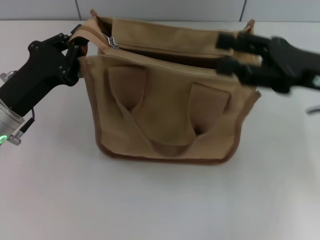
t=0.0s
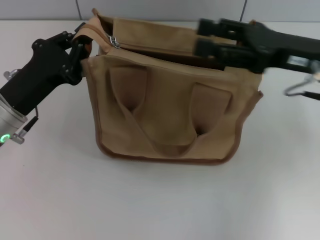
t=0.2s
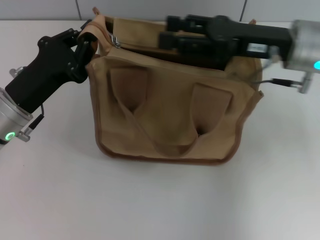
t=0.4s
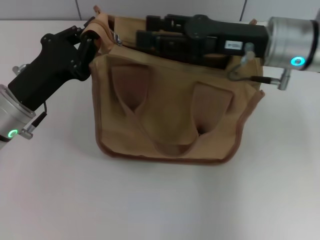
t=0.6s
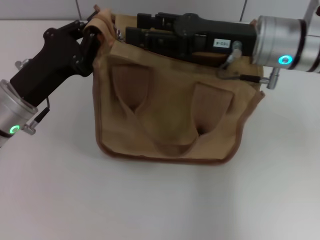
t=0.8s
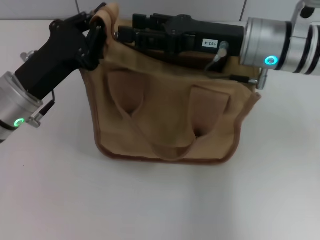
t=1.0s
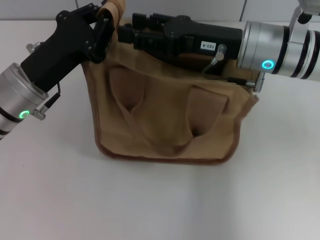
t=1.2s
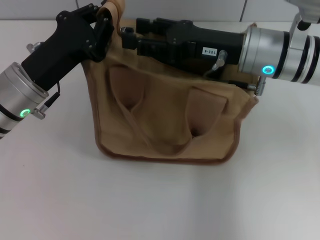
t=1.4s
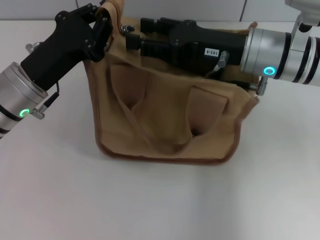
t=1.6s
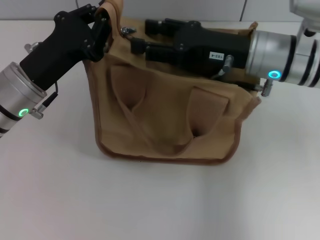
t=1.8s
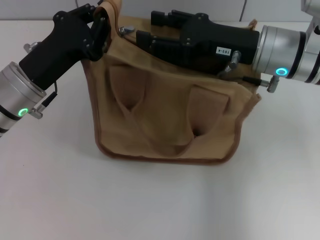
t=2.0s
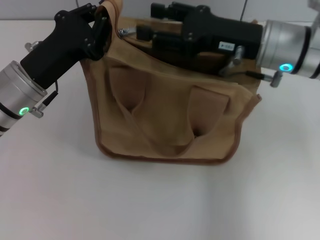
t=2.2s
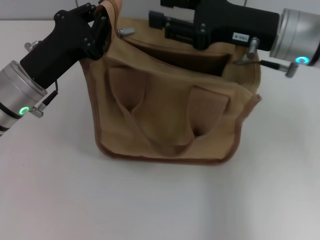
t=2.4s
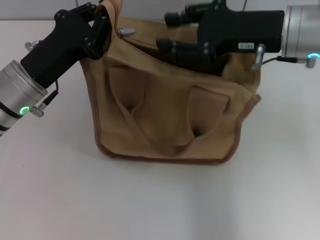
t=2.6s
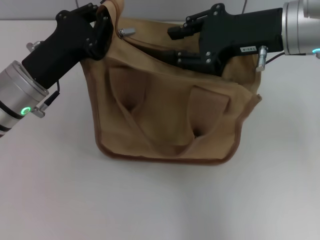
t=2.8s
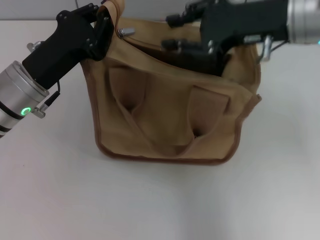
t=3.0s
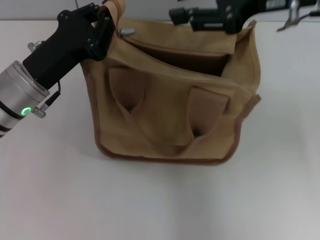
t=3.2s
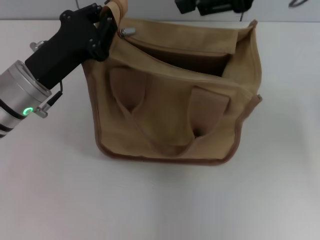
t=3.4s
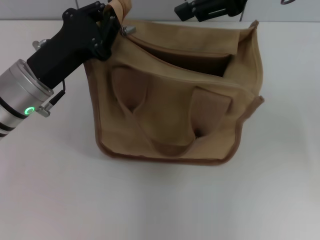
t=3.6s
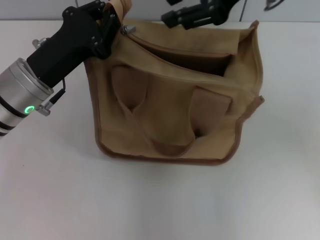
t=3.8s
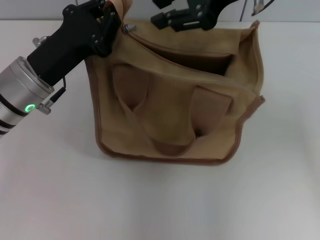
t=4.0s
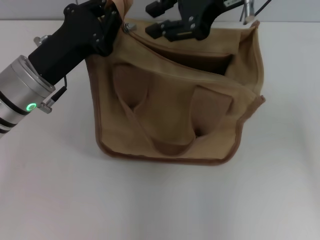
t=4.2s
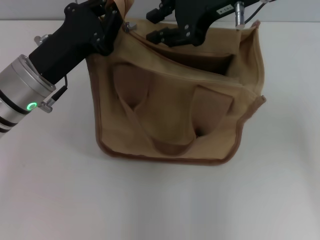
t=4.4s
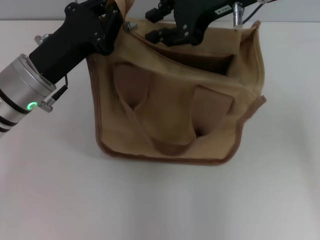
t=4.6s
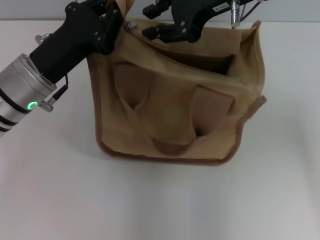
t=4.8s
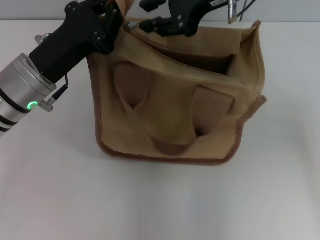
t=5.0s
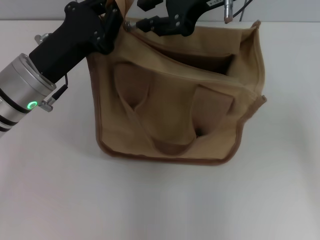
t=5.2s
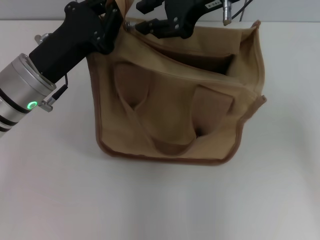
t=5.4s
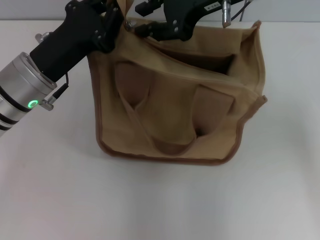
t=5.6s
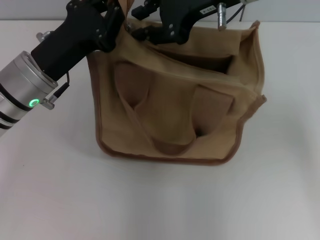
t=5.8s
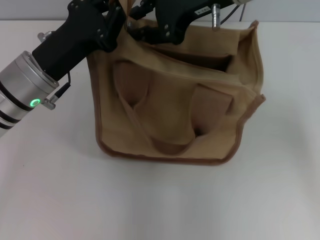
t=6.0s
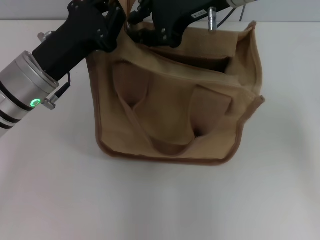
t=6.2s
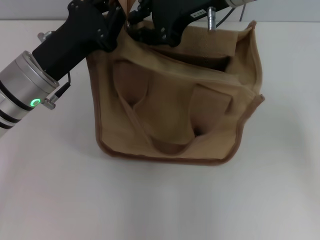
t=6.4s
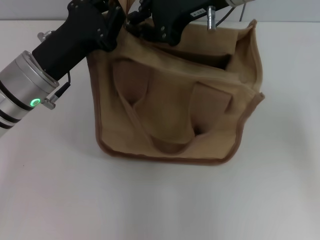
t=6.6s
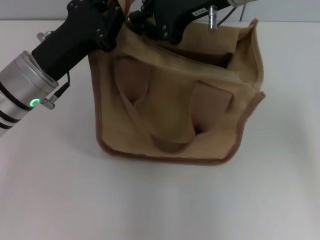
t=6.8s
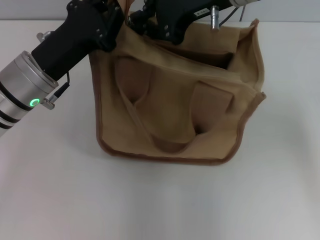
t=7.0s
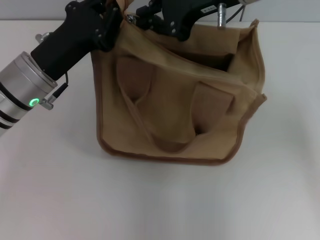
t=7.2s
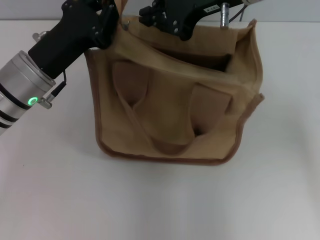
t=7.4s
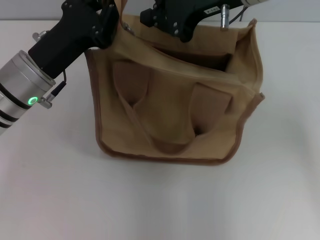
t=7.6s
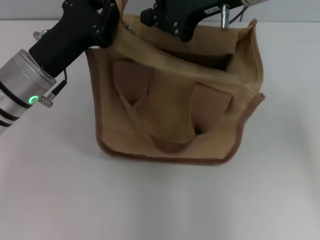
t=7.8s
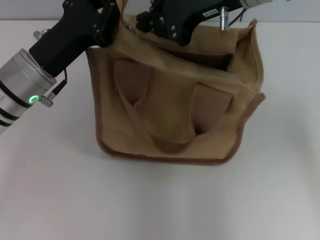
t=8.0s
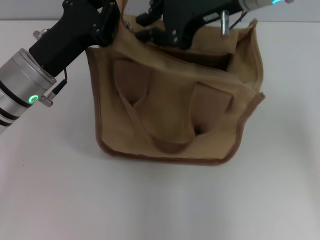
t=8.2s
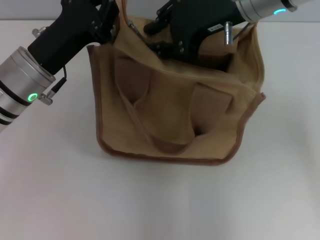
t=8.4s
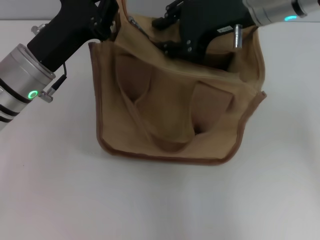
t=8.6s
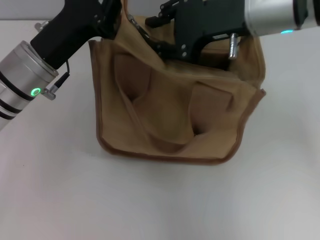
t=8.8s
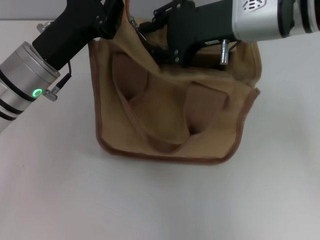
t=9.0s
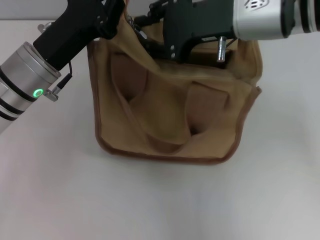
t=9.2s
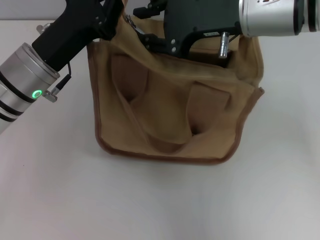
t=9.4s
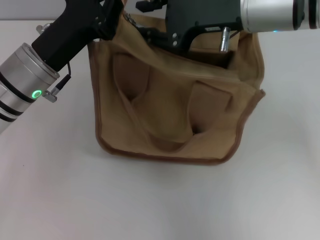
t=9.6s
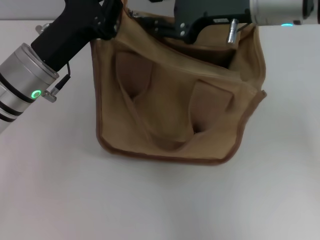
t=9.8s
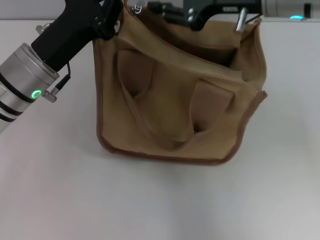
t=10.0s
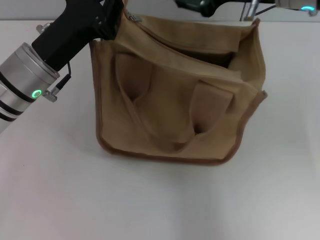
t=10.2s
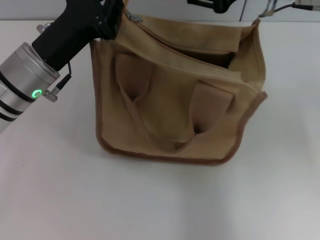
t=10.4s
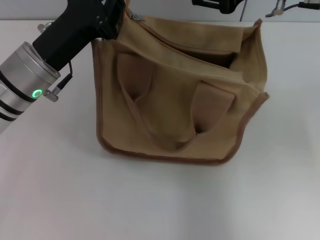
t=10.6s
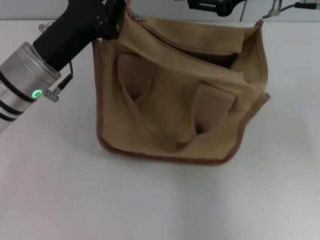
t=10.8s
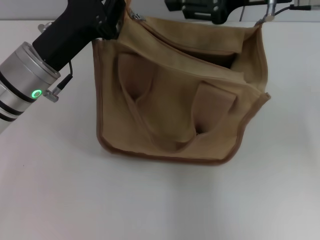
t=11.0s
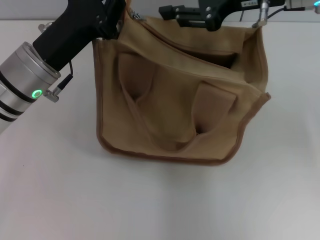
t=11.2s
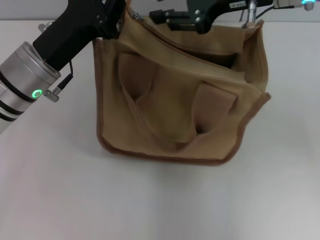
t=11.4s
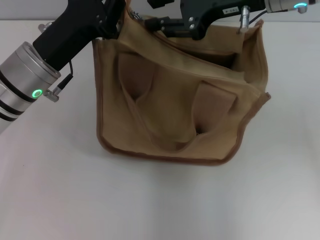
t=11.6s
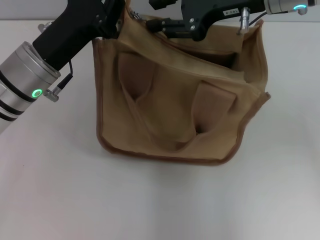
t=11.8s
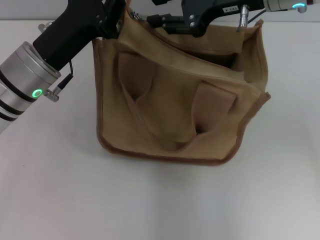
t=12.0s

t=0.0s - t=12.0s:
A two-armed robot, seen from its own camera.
t=0.0s - t=1.6s: The right gripper moves to the left and forward, approximately 10 cm.
t=1.6s - t=3.0s: The right gripper is displaced upward by about 10 cm, and closes its fingers.
t=3.0s - t=4.4s: The right gripper travels to the left by some 5 cm.
t=4.4s - t=6.0s: There are only small adjustments of the grippers.
t=6.0s - t=7.6s: The right gripper closes.
t=7.6s - t=9.0s: The right gripper opens its fingers.
t=9.0s - t=10.4s: The right gripper moves to the right, roughly 5 cm.
t=10.4s - t=12.0s: The grippers make only small movements.

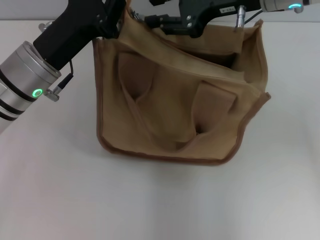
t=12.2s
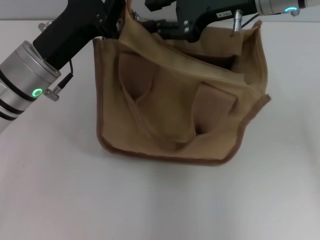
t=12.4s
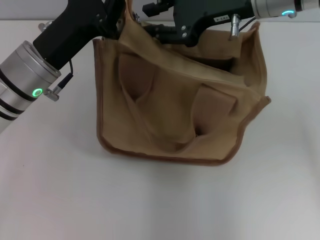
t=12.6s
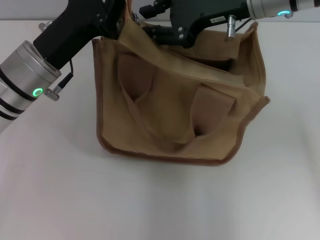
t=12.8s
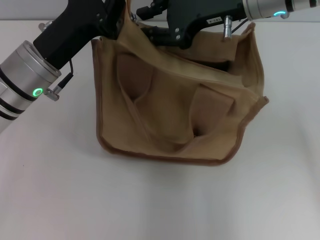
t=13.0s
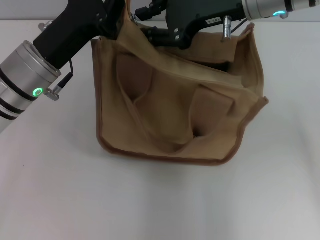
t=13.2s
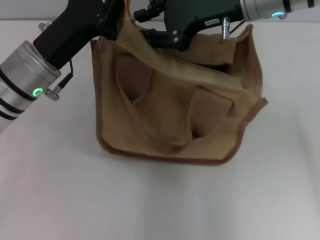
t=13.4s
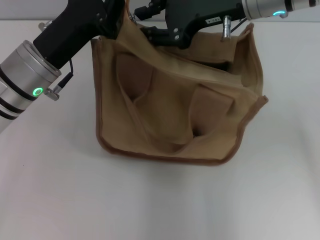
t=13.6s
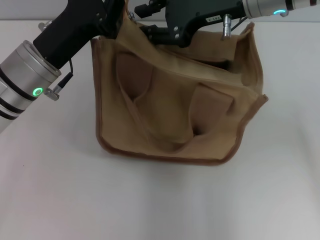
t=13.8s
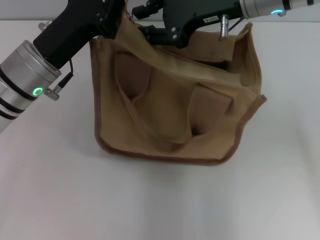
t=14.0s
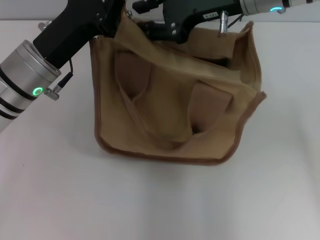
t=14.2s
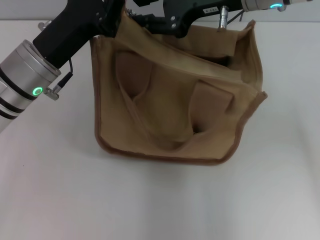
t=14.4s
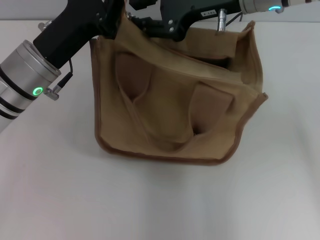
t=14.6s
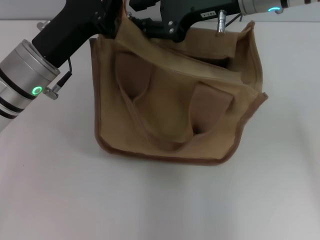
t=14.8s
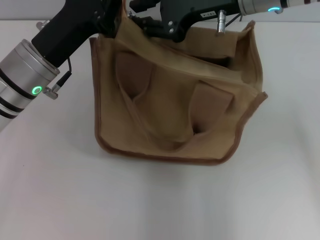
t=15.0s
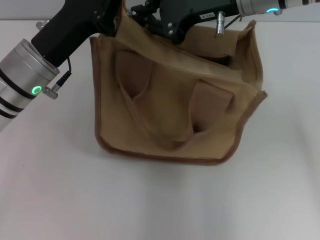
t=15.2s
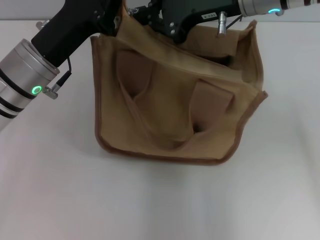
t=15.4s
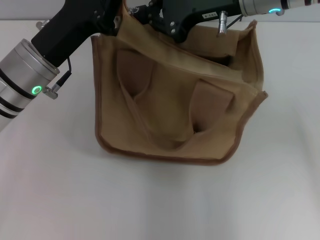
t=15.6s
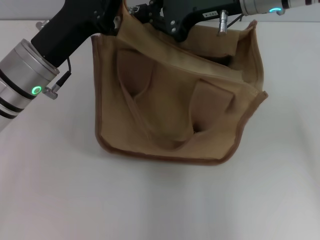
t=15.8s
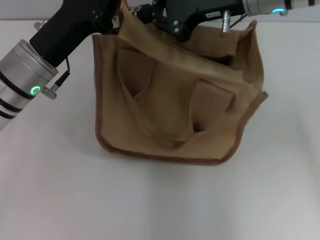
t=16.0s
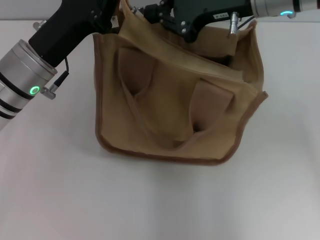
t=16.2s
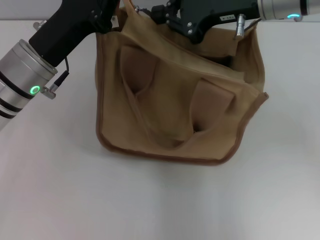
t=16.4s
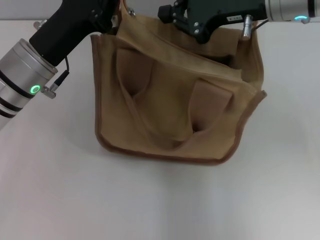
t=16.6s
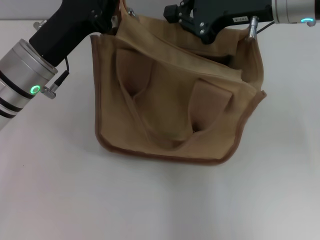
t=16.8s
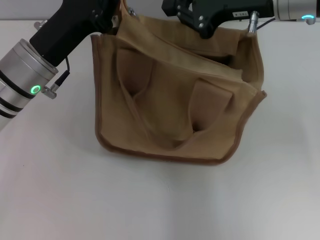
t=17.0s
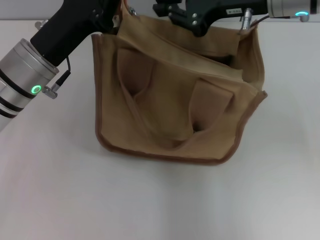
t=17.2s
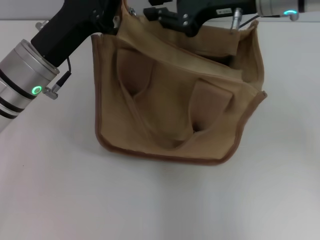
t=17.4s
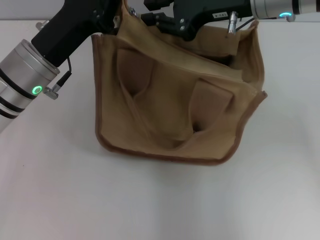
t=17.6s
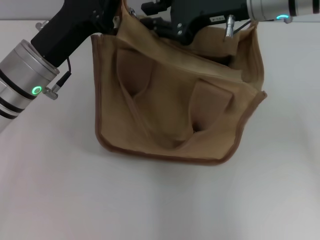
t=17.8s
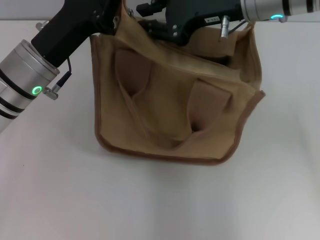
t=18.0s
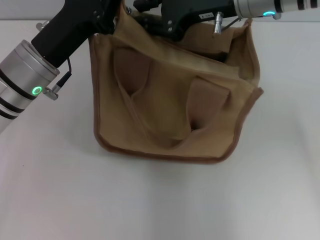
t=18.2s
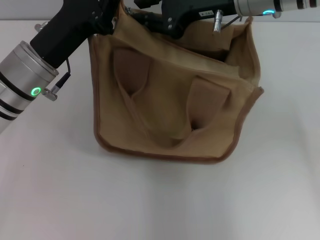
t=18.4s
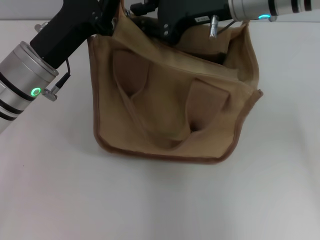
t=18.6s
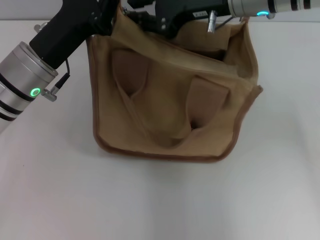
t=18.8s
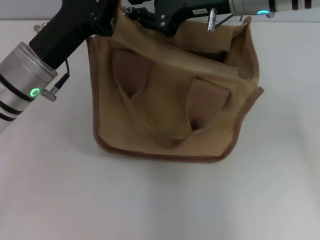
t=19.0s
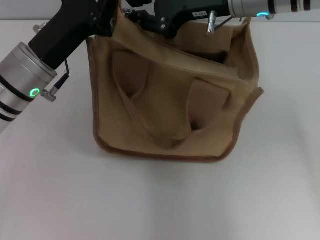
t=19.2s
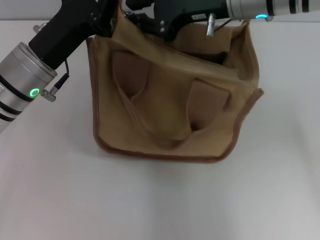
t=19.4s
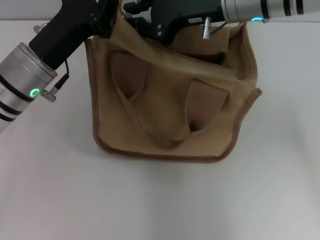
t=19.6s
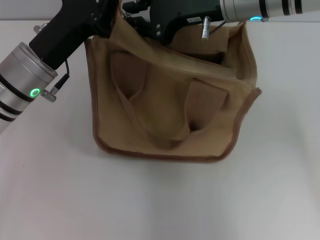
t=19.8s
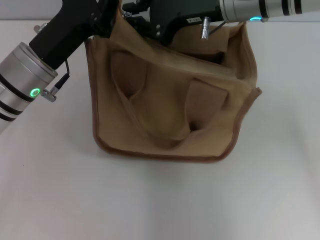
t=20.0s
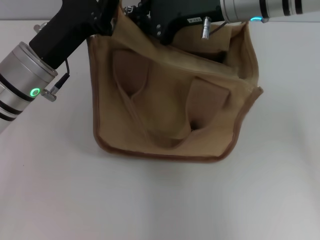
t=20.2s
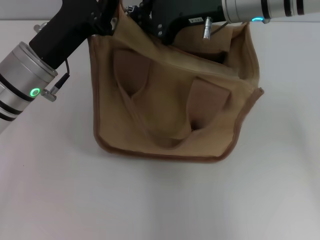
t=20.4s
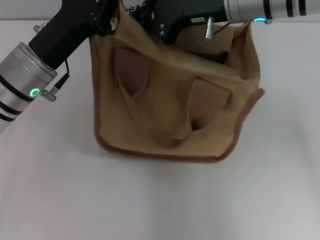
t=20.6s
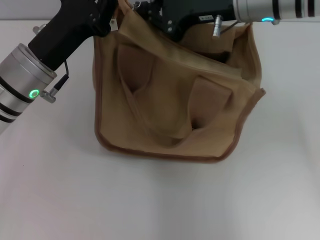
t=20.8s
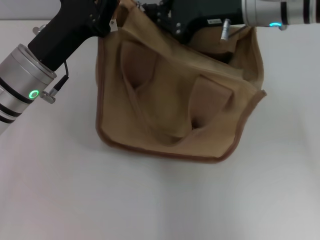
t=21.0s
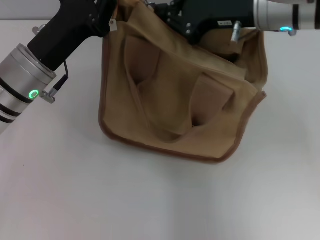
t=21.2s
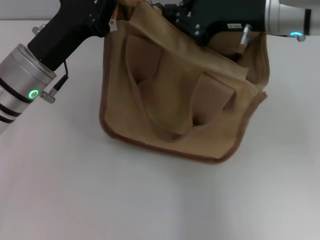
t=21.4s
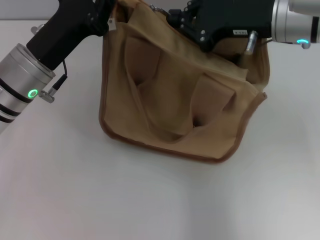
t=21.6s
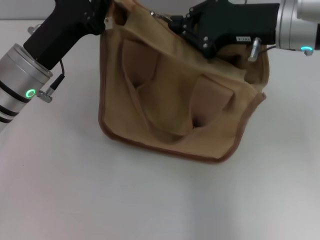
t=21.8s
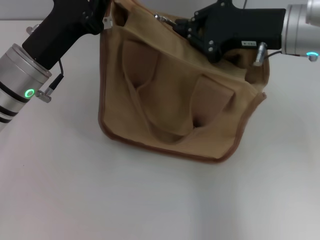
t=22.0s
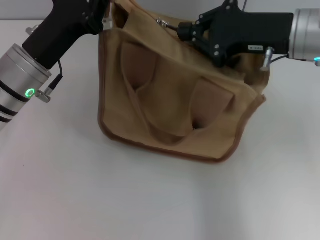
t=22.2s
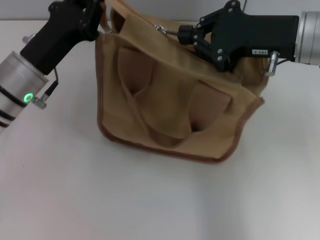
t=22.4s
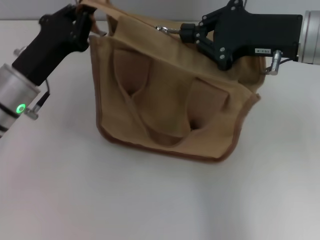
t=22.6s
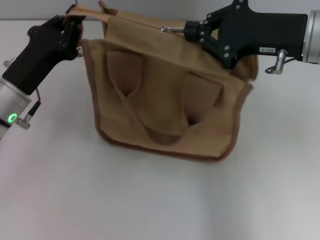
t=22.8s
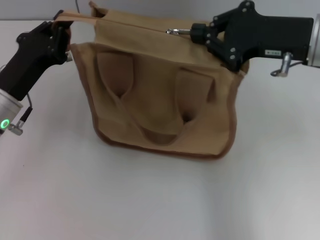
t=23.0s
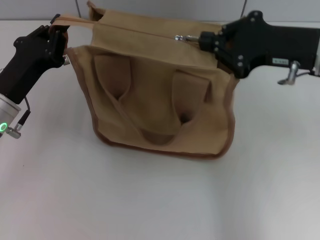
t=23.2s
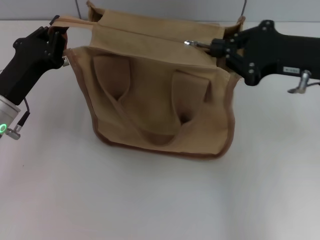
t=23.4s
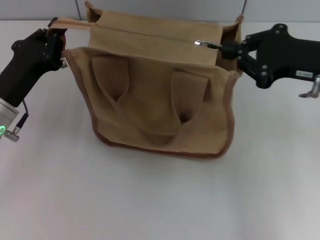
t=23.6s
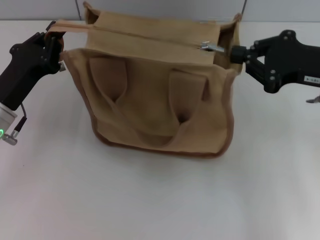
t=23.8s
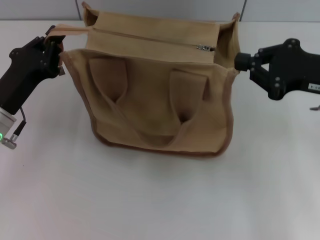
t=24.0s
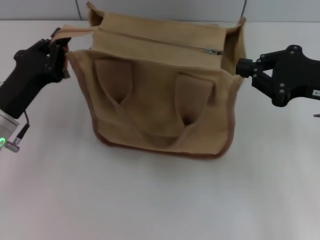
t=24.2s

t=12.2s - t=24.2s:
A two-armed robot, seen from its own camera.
Step, t=12.2s - t=23.8s: Pull up the zipper with your right hand.
t=12.2s - t=13.8s: The grippers stay close to where they were, moving slightly.
t=13.8s - t=15.2s: Both grippers stay put.
t=15.2s - t=21.2s: The grippers move only a little.
t=21.2s - t=22.6s: The right gripper changes place by approximately 5 cm.
t=22.6s - t=24.2s: The left gripper ends up about 5 cm from where it was, while the right gripper goes roughly 5 cm to the right.
